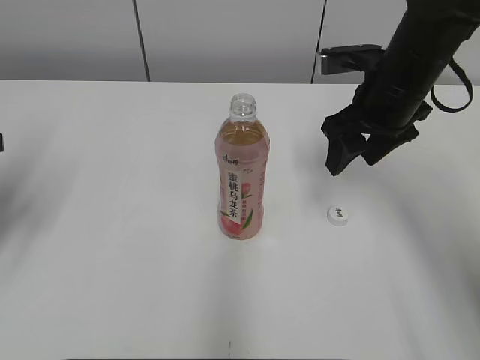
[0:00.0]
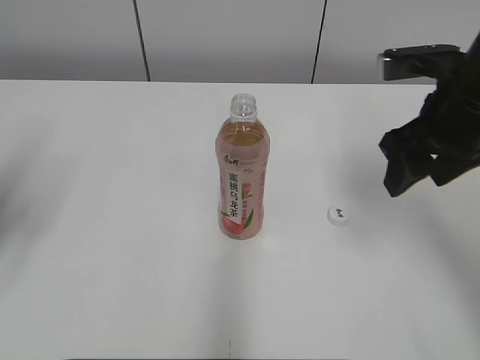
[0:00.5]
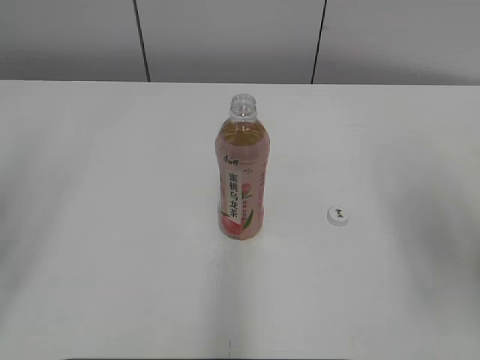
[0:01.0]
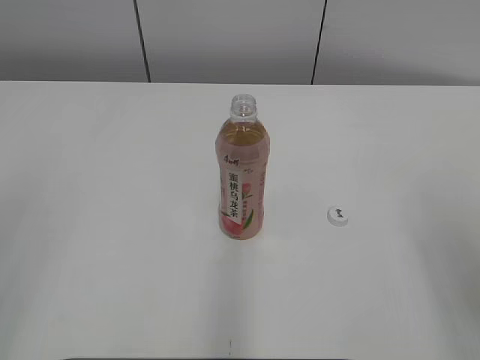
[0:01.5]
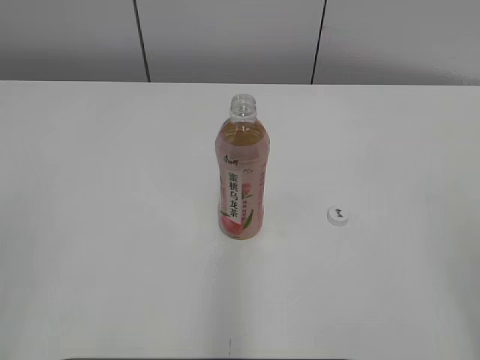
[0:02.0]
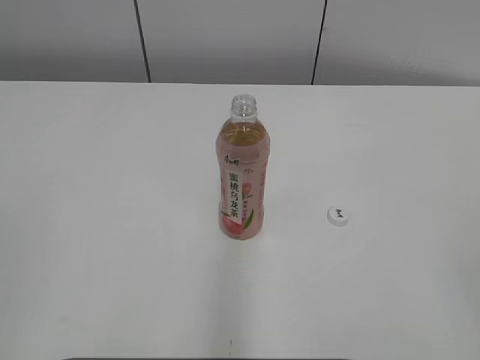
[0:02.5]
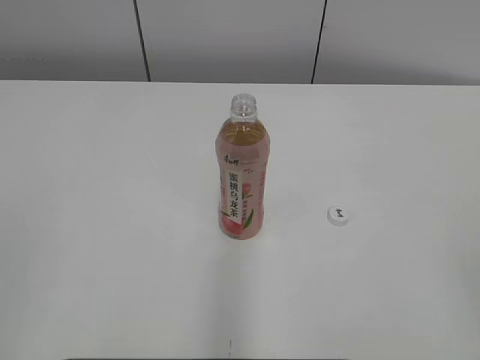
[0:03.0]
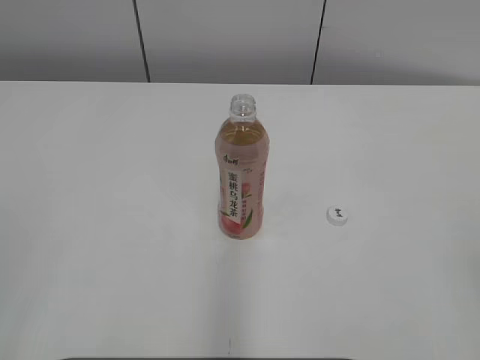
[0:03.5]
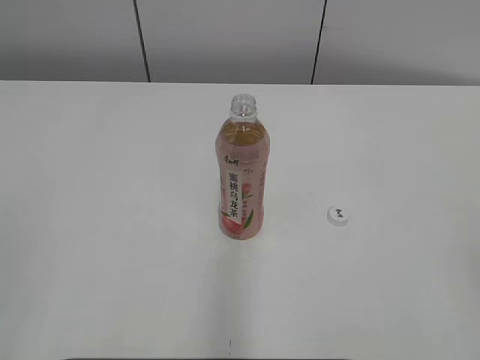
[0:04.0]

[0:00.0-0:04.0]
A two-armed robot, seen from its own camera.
0:00.0 to 0:02.0: The two grippers go some 30 cm backward.
